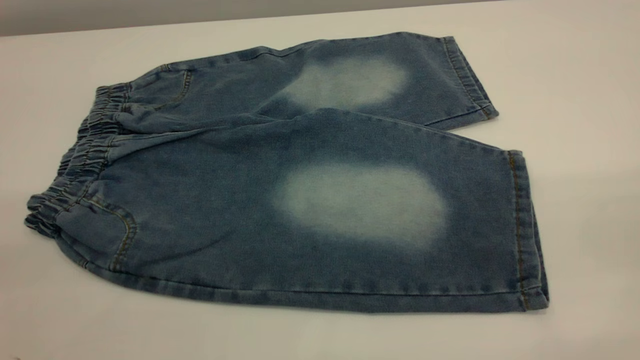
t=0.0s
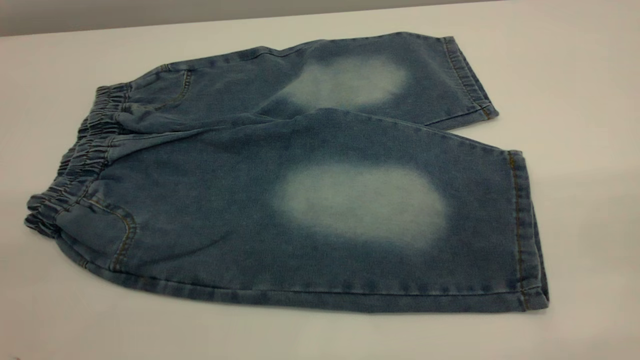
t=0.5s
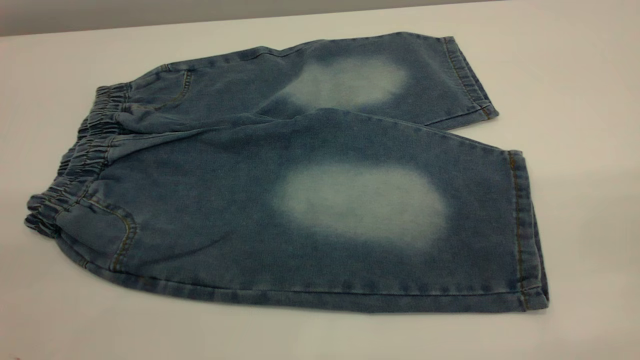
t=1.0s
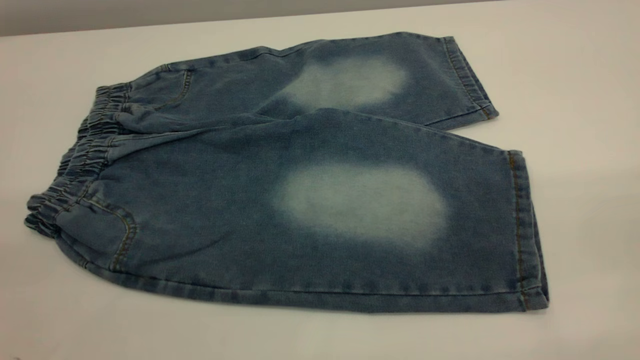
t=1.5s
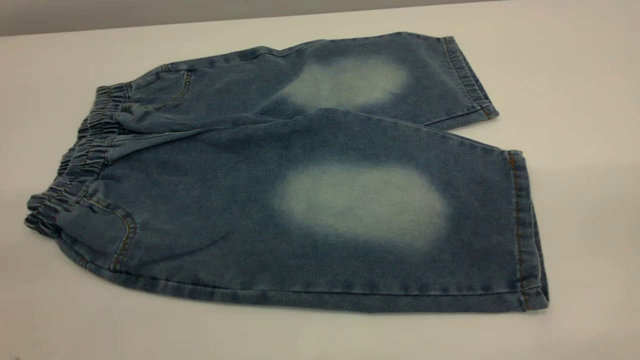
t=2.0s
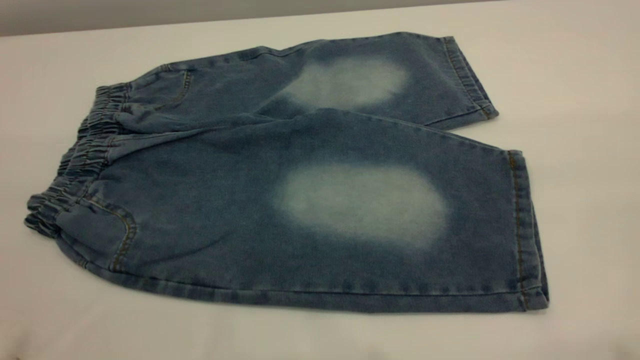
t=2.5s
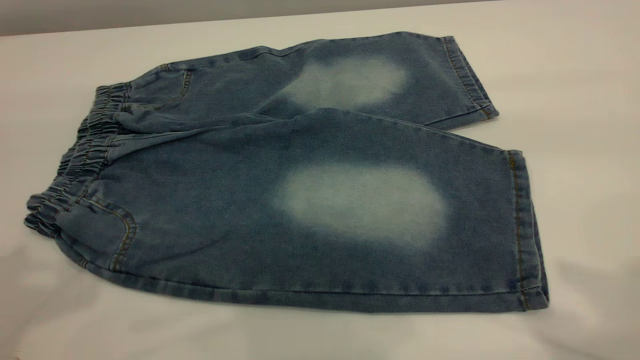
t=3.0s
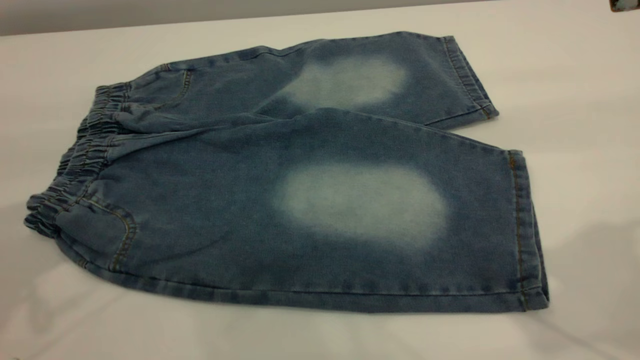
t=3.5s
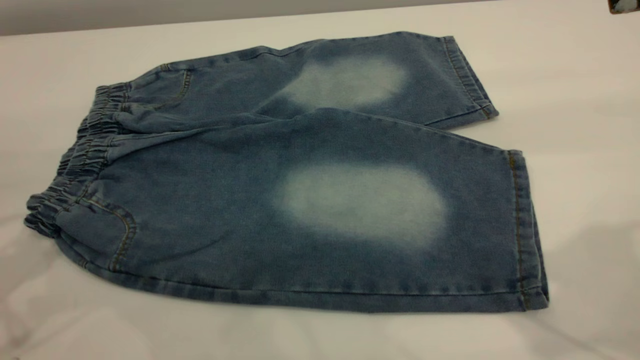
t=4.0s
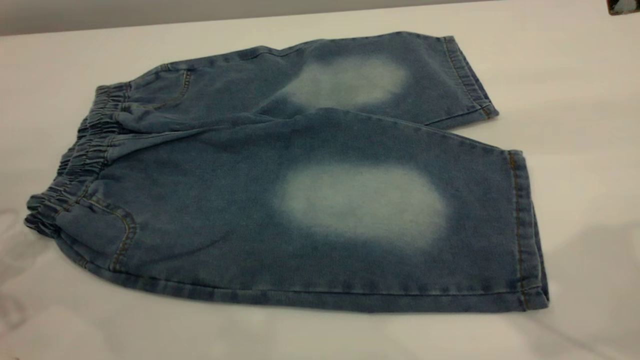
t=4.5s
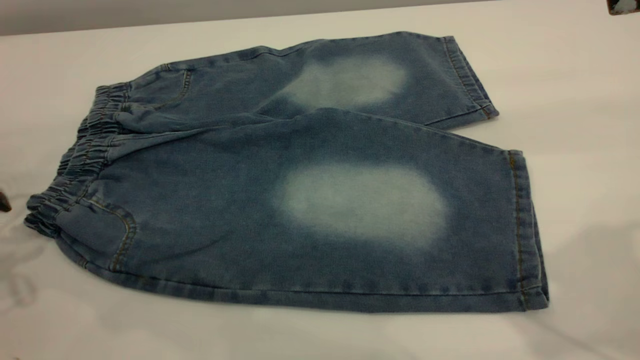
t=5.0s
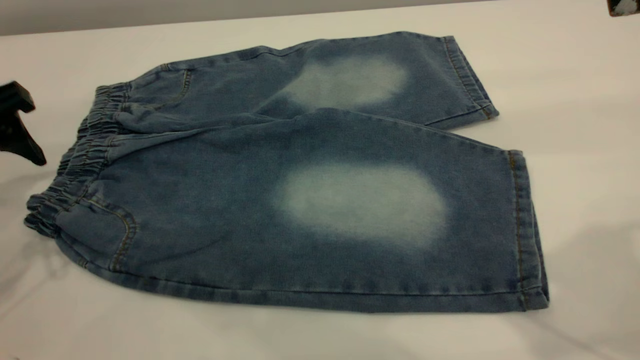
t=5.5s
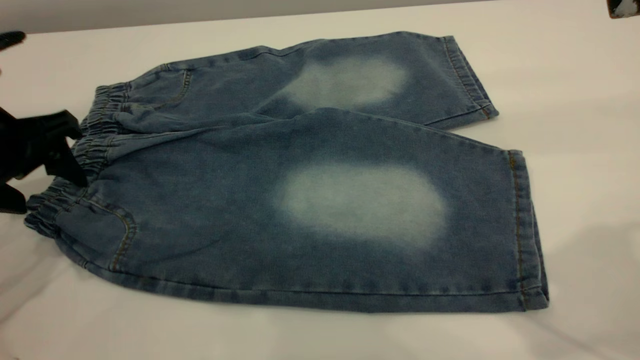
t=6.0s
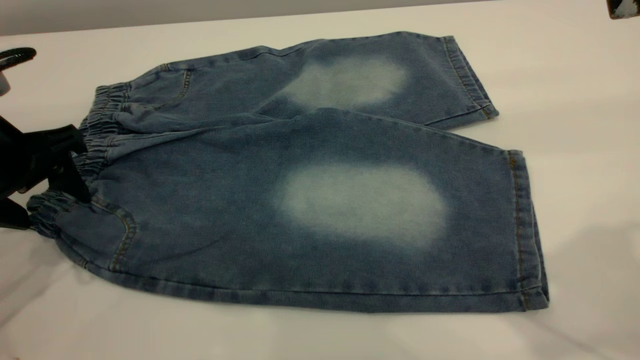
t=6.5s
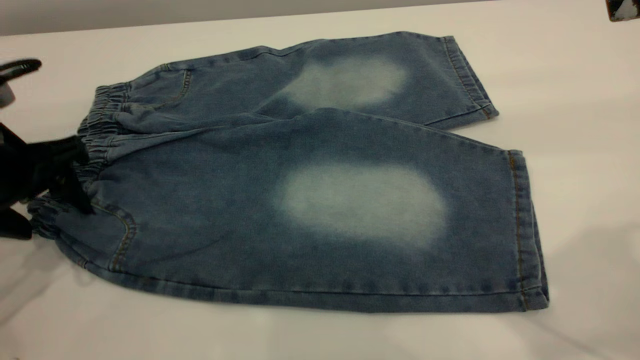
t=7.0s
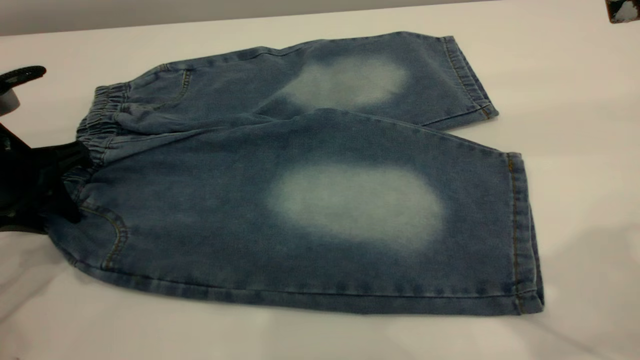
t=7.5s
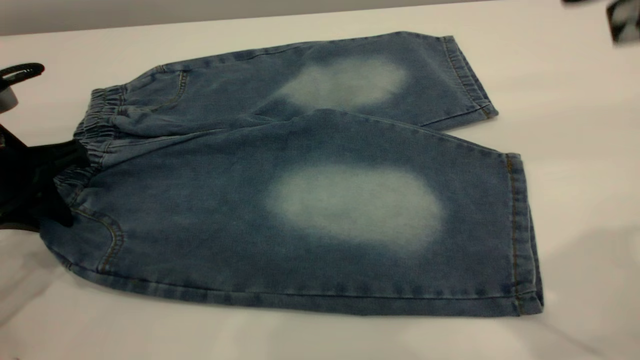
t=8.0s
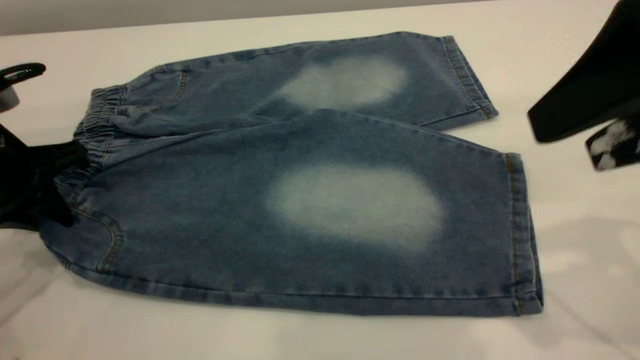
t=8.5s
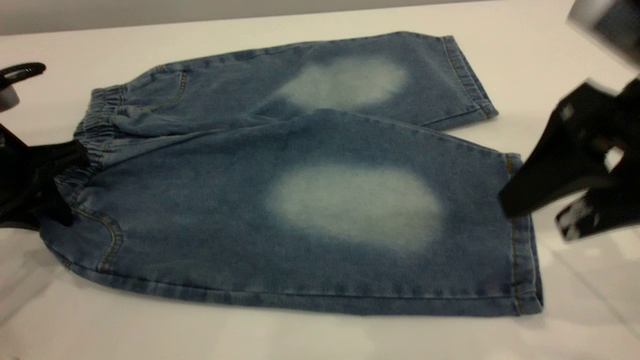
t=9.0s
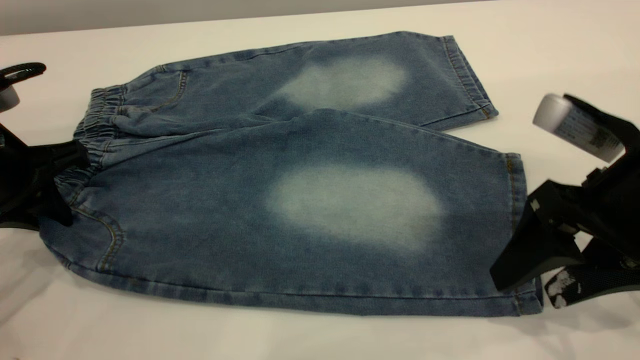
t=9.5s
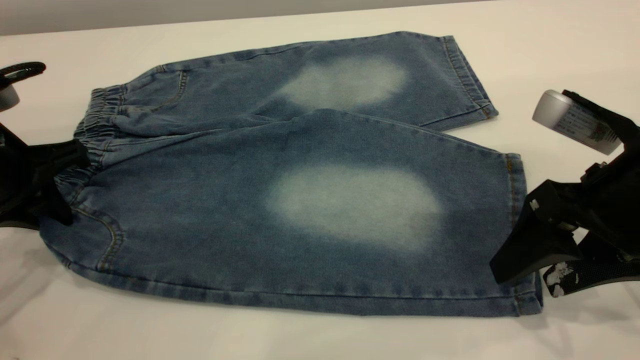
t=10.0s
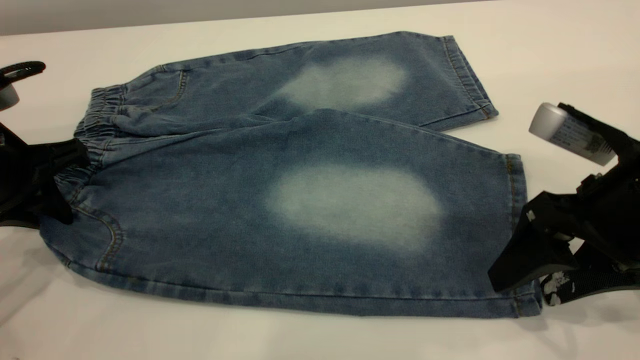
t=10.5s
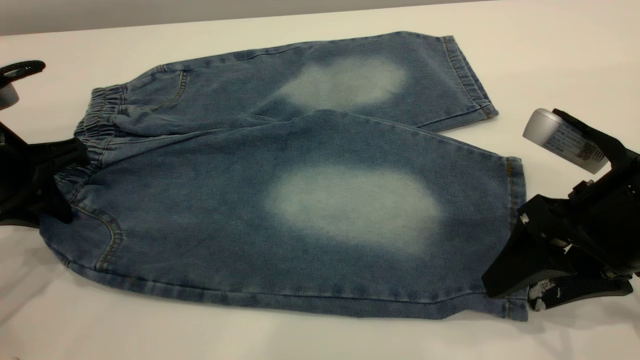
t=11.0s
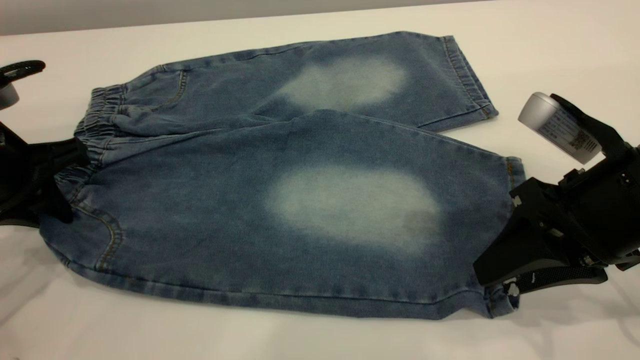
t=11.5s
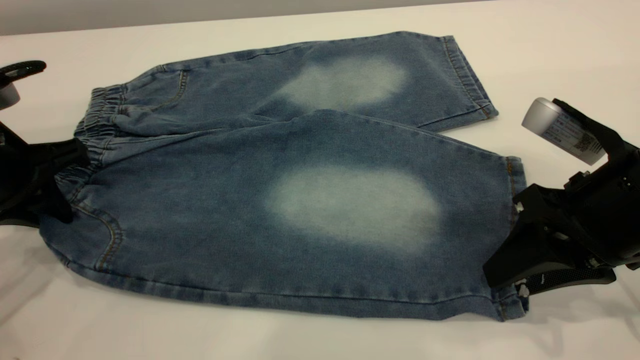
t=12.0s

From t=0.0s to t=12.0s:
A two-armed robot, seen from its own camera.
From t=4.0s to t=6.0s: The left gripper moves downward and forward, about 10 cm.
From t=6.0s to t=8.0s: The left gripper closes.
From t=8.0s to t=10.0s: The right gripper moves downward, approximately 20 cm.
From t=10.0s to t=12.0s: The right gripper closes.

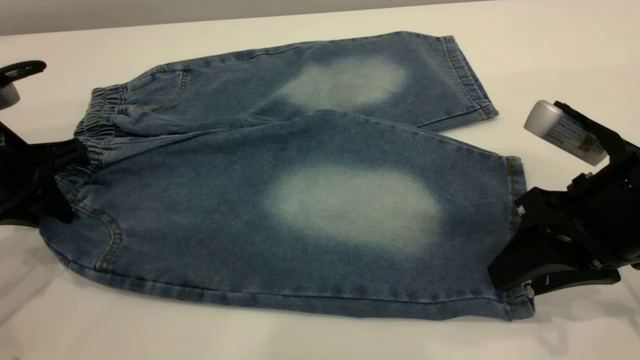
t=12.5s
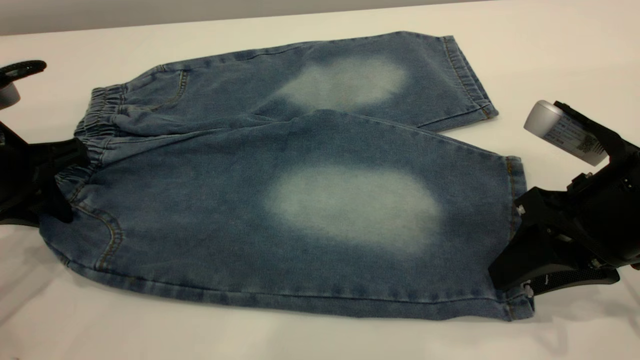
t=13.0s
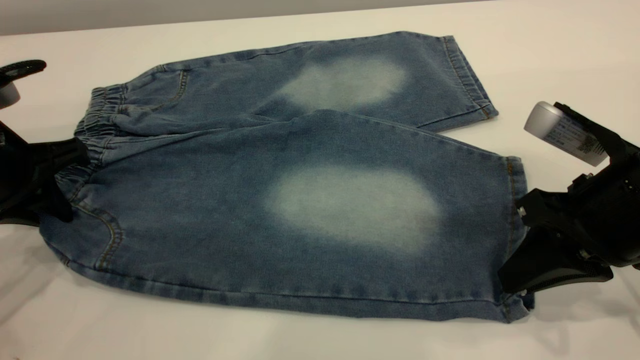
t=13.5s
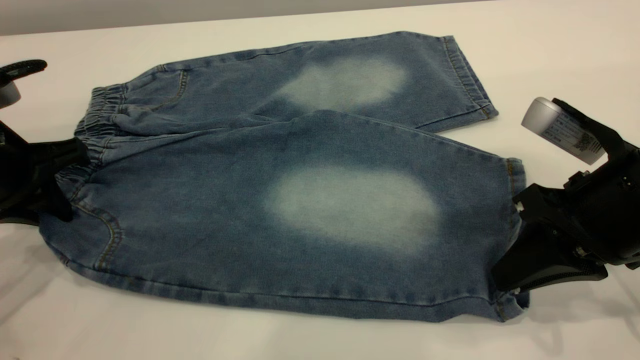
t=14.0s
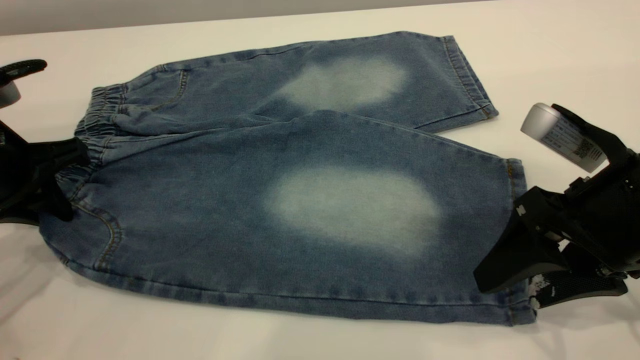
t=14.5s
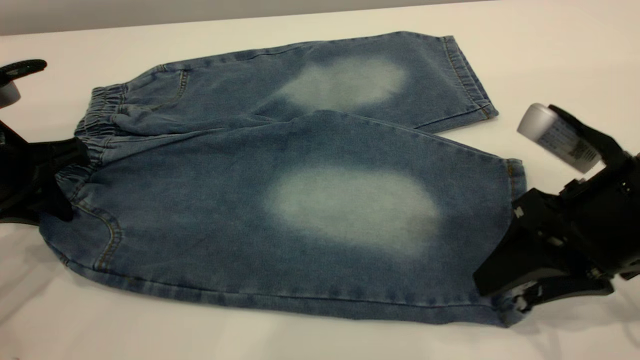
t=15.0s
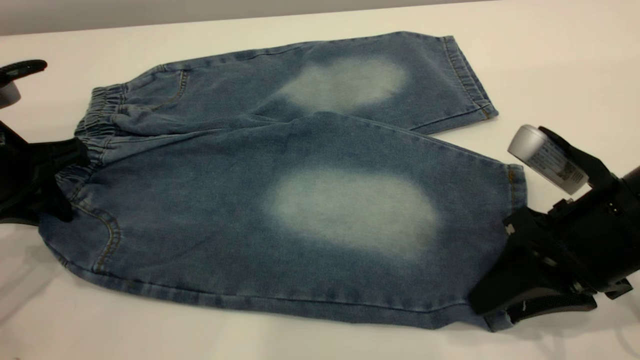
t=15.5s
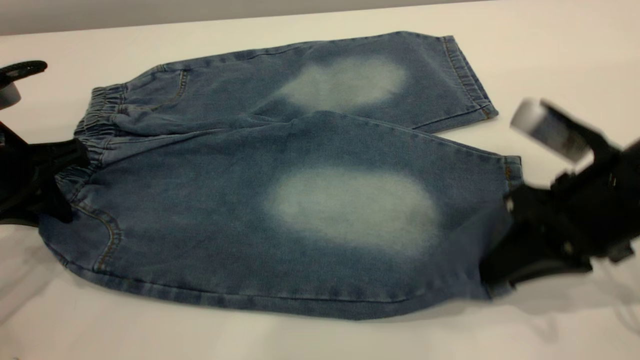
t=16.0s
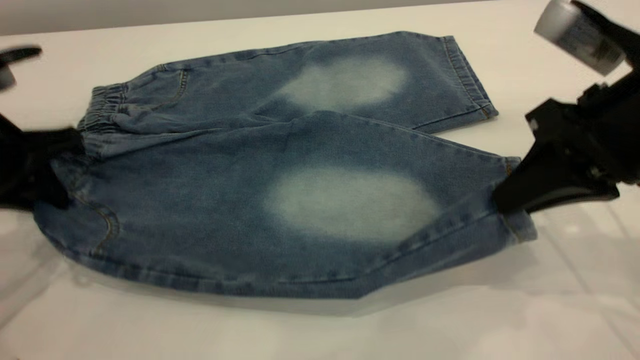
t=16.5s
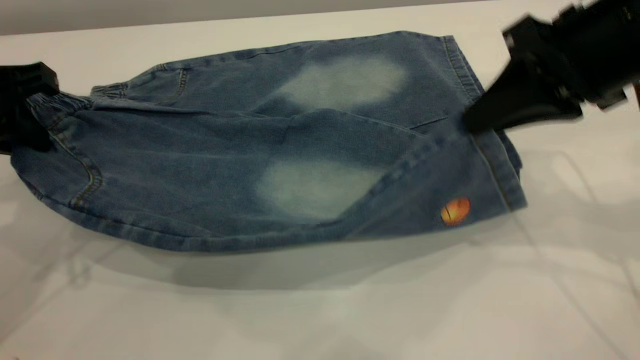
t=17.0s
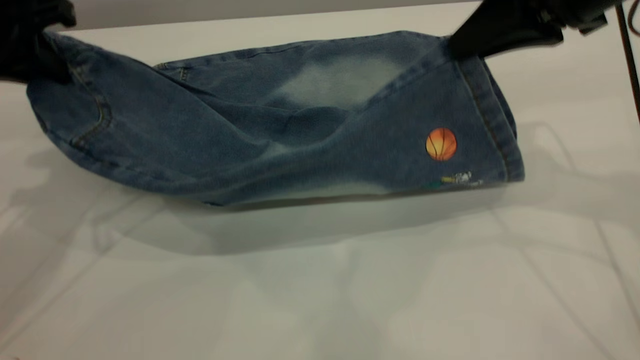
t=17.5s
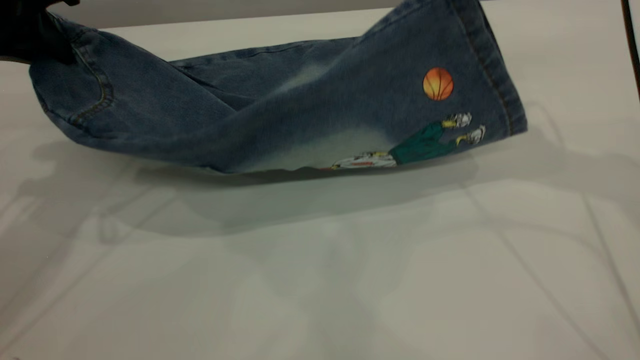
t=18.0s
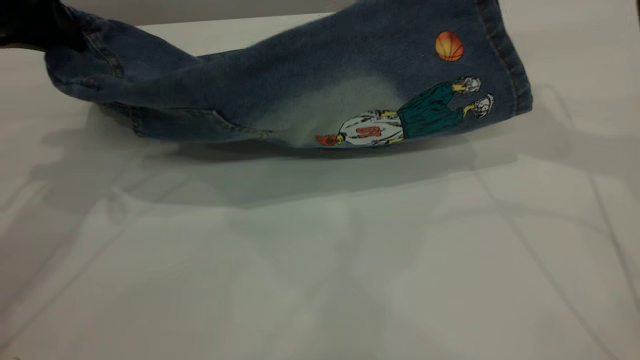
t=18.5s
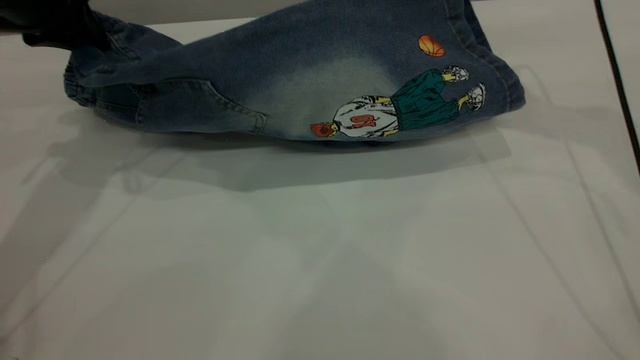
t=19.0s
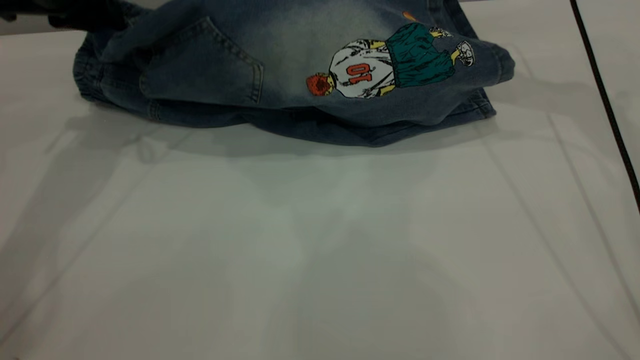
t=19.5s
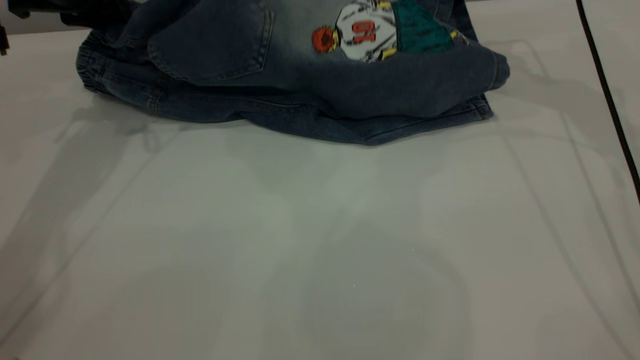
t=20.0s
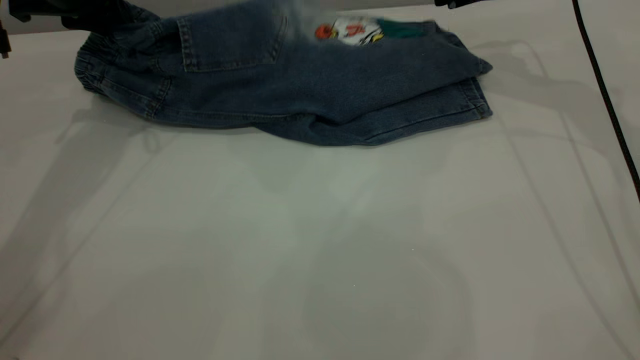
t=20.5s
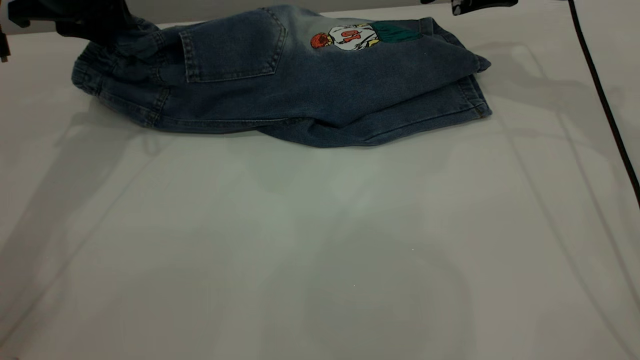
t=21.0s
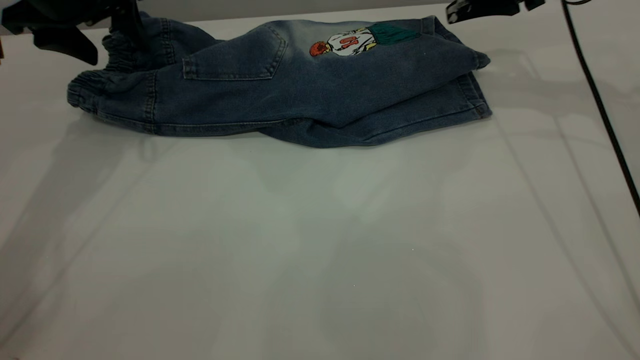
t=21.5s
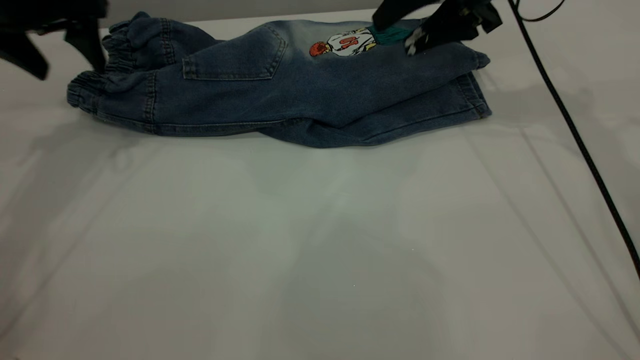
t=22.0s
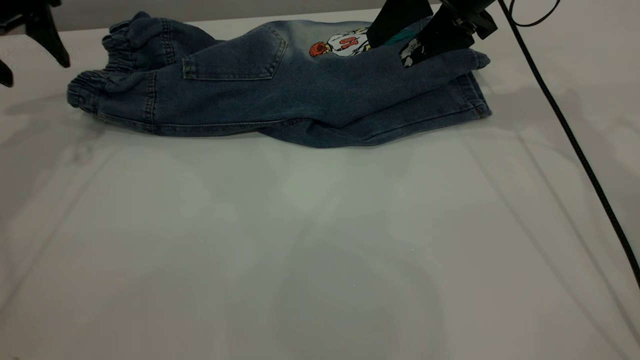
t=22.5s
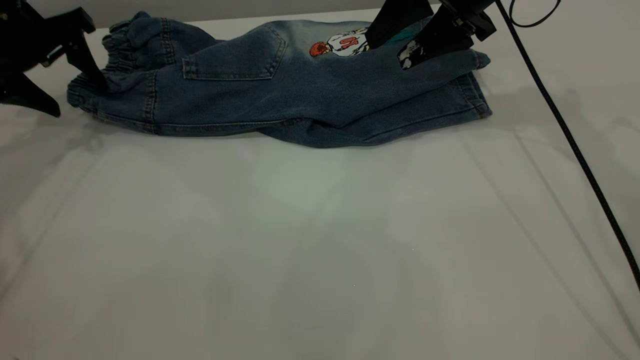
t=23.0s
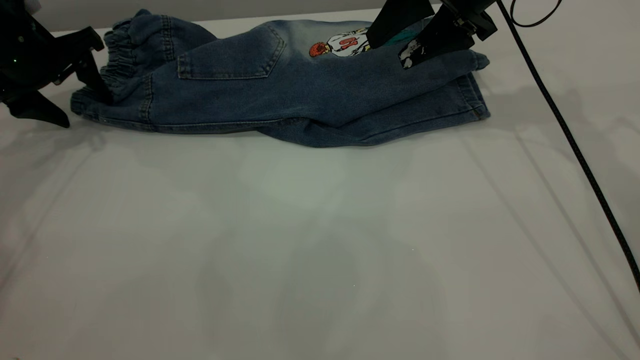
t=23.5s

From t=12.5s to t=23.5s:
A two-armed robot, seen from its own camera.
Step, from t=12.5s to t=21.5s: Fold the bottom of the pants upward.
From t=12.5s to t=14.5s: The right gripper opens its fingers.
From t=14.5s to t=16.0s: The right gripper closes.
From t=16.0s to t=18.0s: The right gripper shifts roughly 20 cm upward and forward. Meanwhile the left gripper heads upward and forward, covering approximately 10 cm.
From t=18.0s to t=20.0s: The right gripper heads forward and downward, covering roughly 15 cm; the left gripper travels forward by about 10 cm.
From t=20.0s to t=21.5s: The left gripper opens up; the right gripper opens.
From t=21.5s to t=23.5s: The right gripper heads to the left, covering approximately 5 cm. Meanwhile the left gripper travels to the left and downward by about 10 cm.
